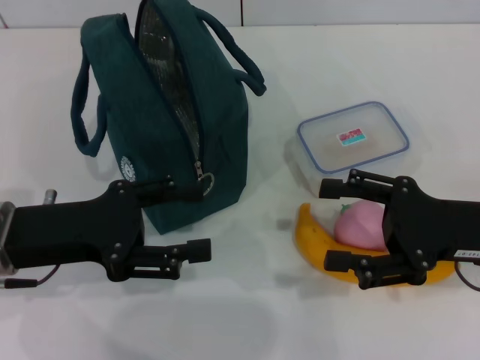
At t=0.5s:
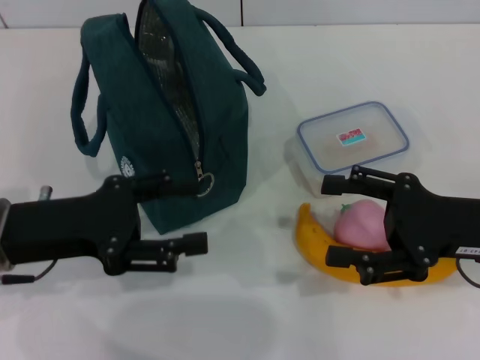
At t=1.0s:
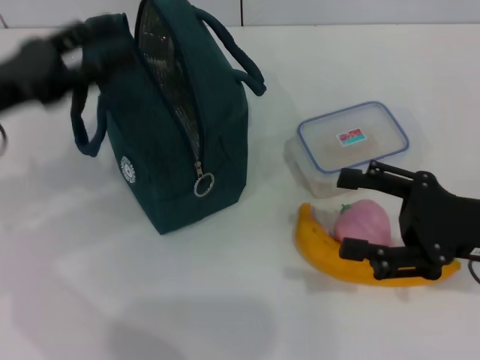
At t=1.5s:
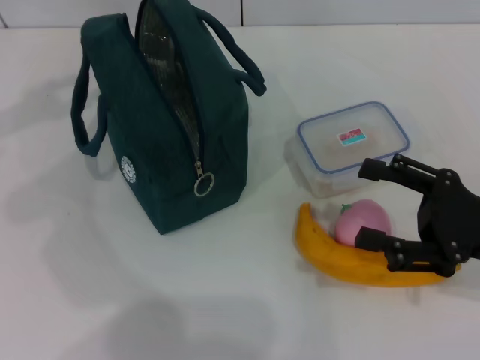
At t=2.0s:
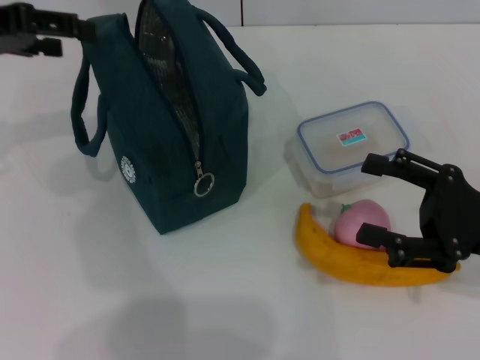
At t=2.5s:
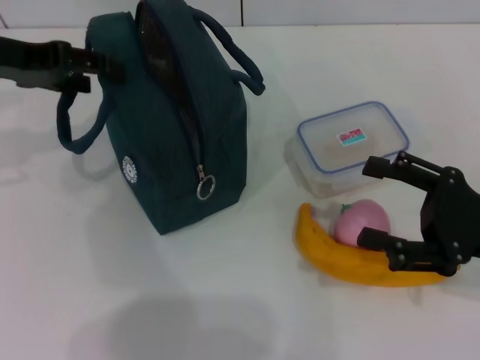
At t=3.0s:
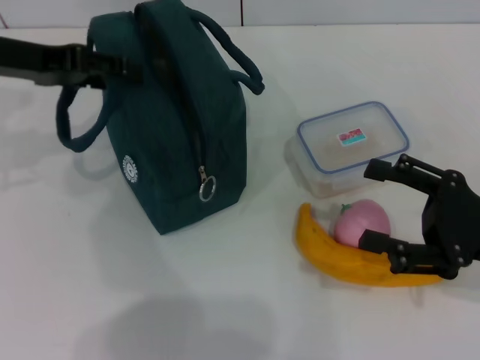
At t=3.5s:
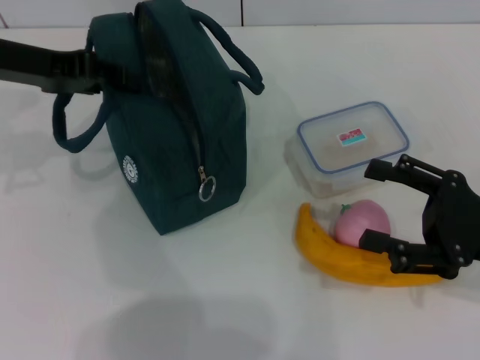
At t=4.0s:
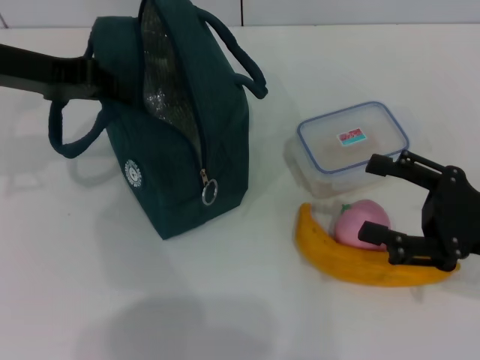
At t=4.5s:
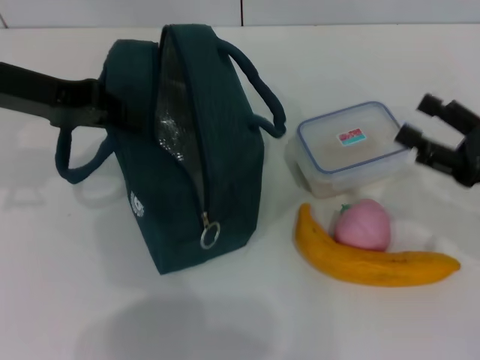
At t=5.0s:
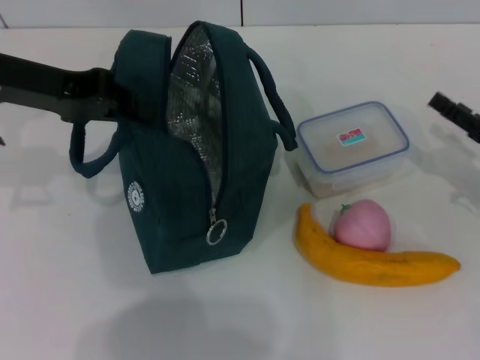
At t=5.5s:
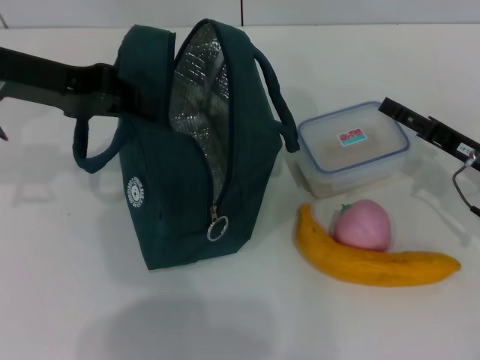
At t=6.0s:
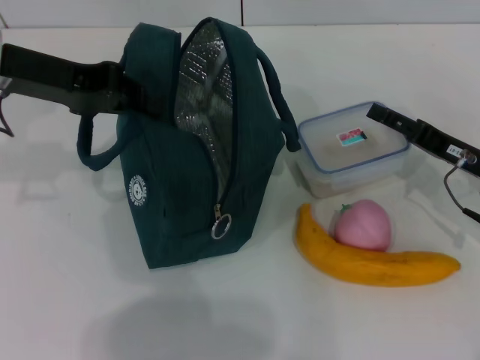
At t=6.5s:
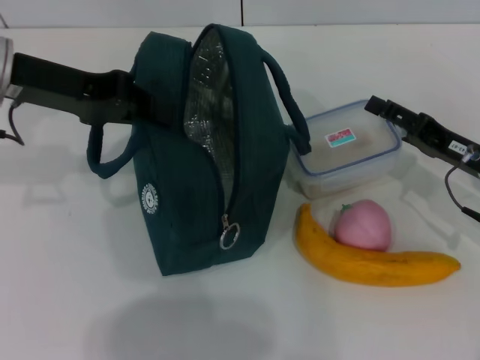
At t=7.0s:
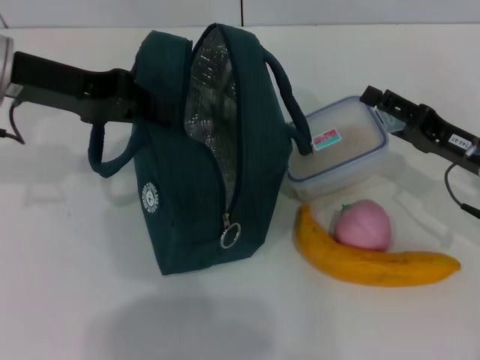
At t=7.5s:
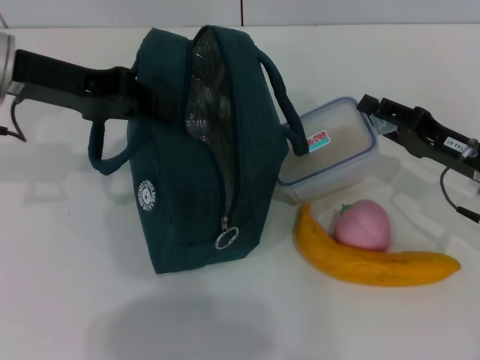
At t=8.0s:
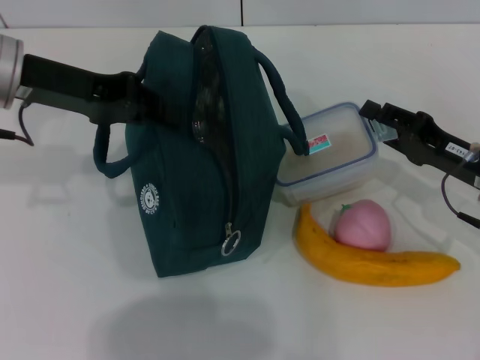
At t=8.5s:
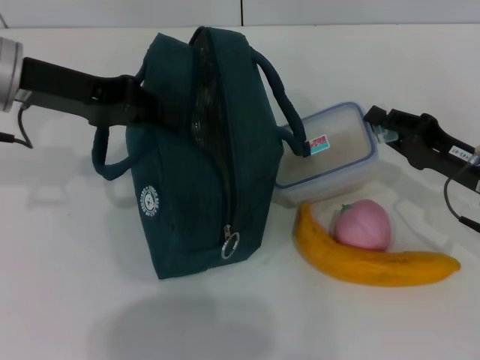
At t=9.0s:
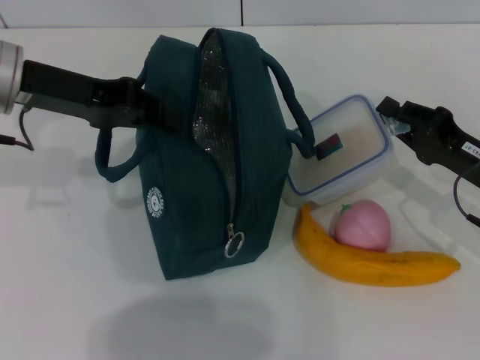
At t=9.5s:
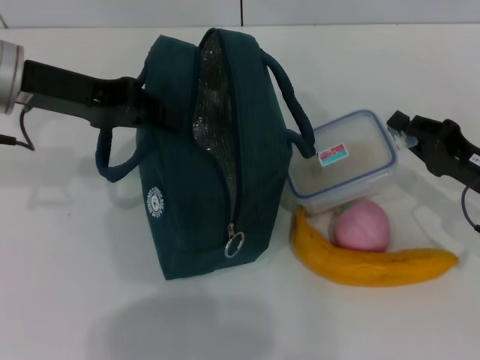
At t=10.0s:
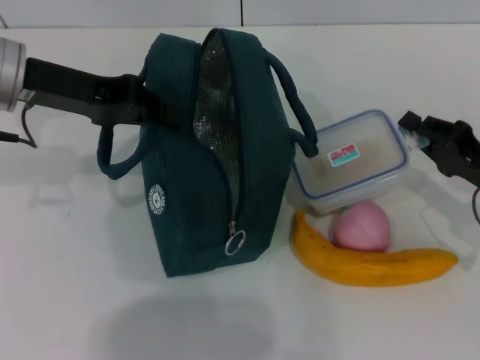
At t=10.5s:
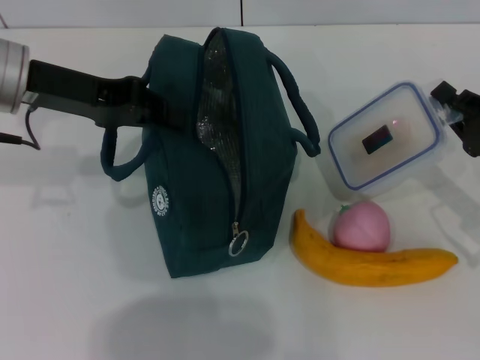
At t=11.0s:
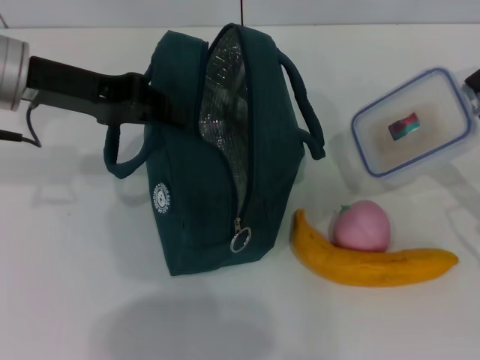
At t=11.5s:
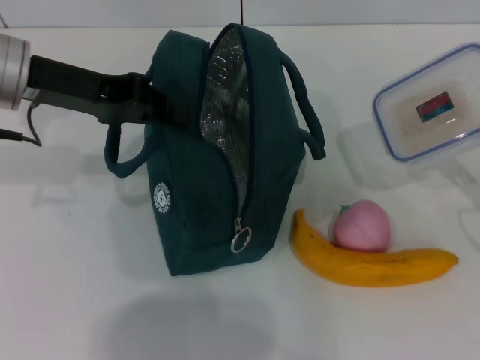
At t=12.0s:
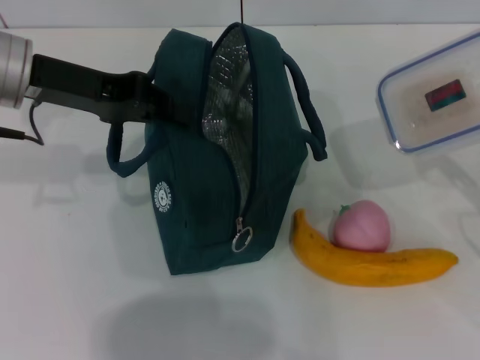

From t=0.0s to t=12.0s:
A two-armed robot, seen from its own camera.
Step, from t=0.0s to t=3.5s: Hold the lunch bag with your left hand.
Step, from t=4.0s to t=8.5s: Pick up the lunch box with your right hand.
From t=0.0s to t=2.0s: The left gripper heads upward, forward and to the left, covering approximately 20 cm.
From t=2.0s to t=4.0s: The left gripper moves some 5 cm, and closes its fingers.
From t=4.0s to t=6.0s: The right gripper moves forward, approximately 10 cm.
From t=6.0s to t=8.0s: The right gripper closes up.
From t=8.0s to t=10.0s: The right gripper closes.
From t=10.0s to t=12.0s: The right gripper shifts by about 5 cm.

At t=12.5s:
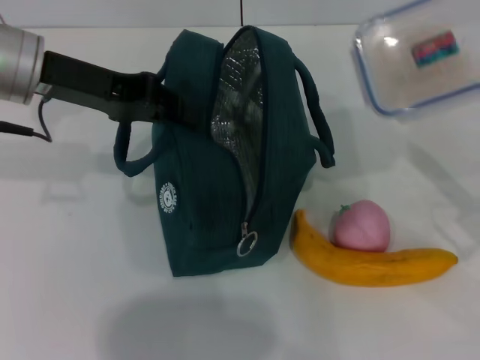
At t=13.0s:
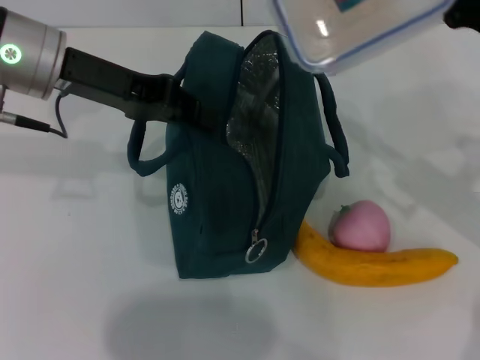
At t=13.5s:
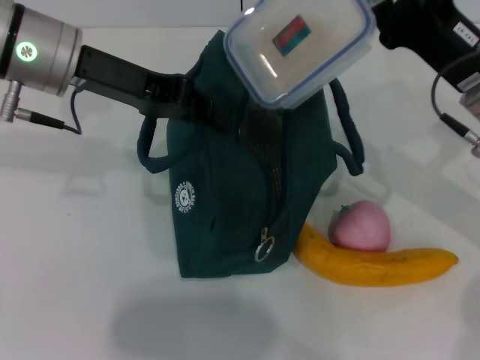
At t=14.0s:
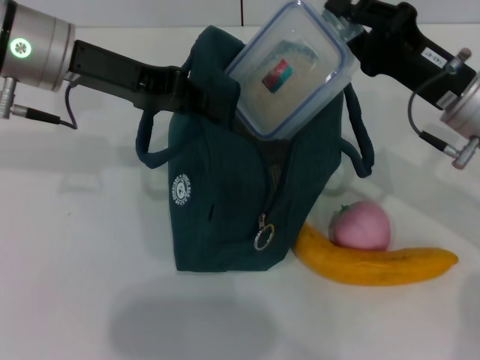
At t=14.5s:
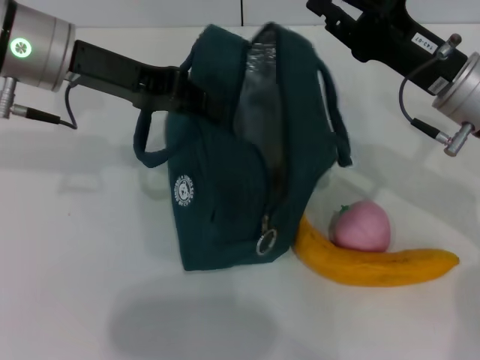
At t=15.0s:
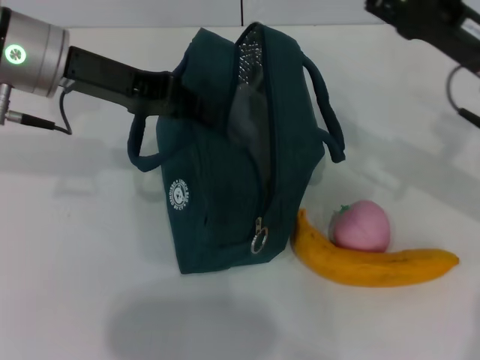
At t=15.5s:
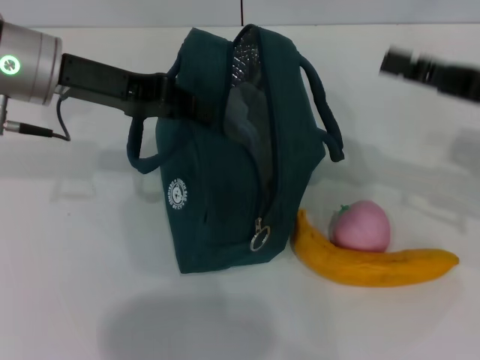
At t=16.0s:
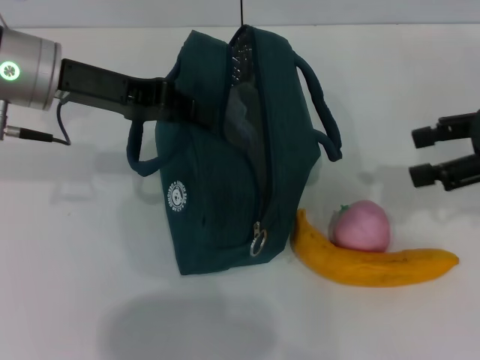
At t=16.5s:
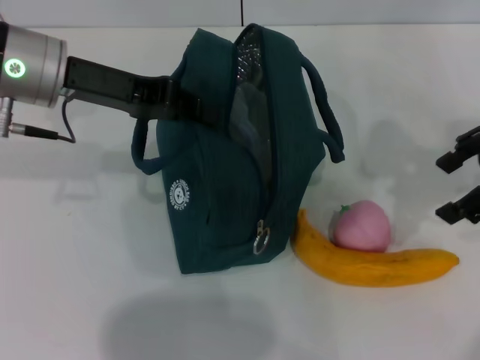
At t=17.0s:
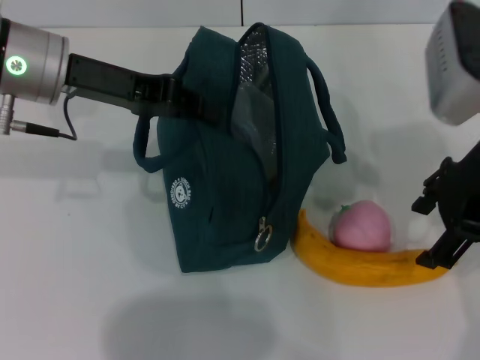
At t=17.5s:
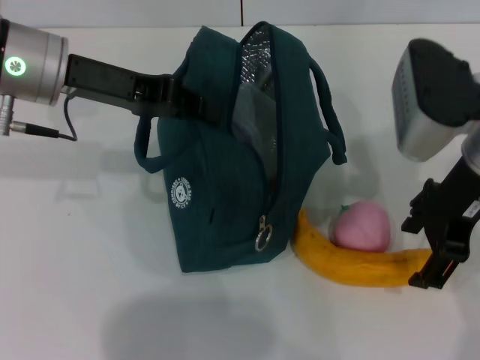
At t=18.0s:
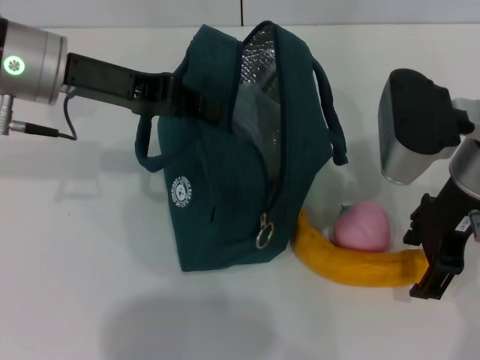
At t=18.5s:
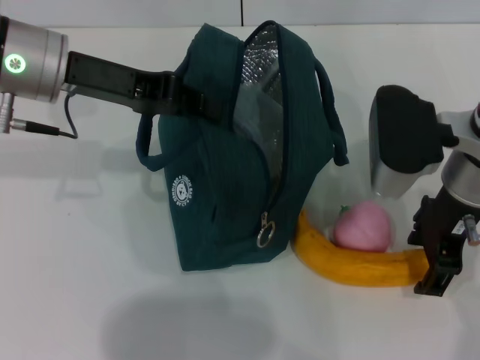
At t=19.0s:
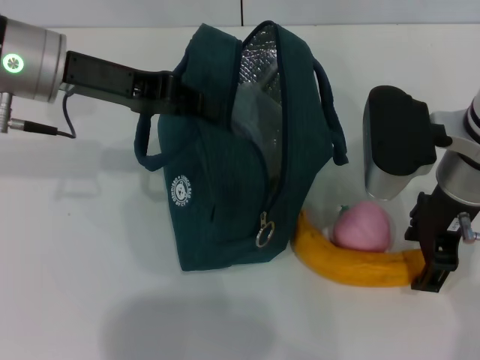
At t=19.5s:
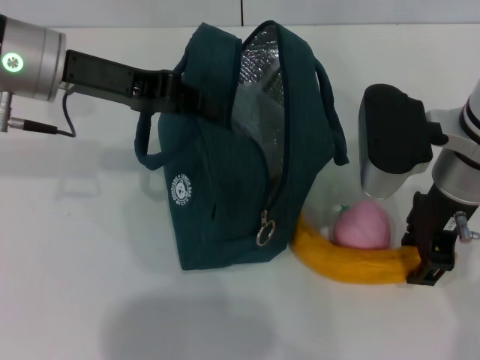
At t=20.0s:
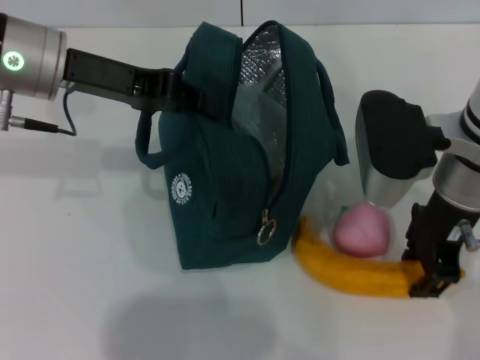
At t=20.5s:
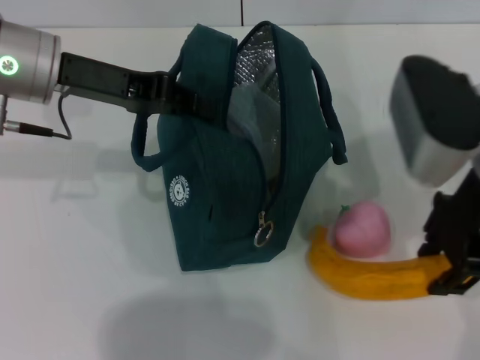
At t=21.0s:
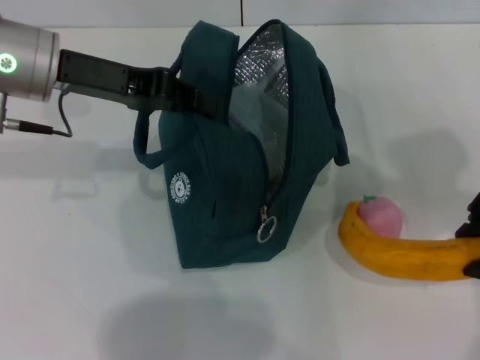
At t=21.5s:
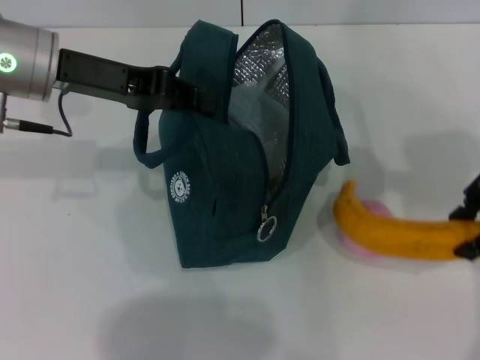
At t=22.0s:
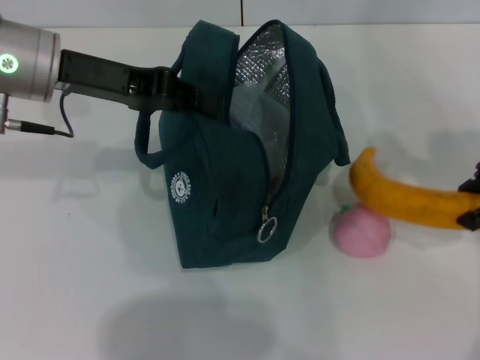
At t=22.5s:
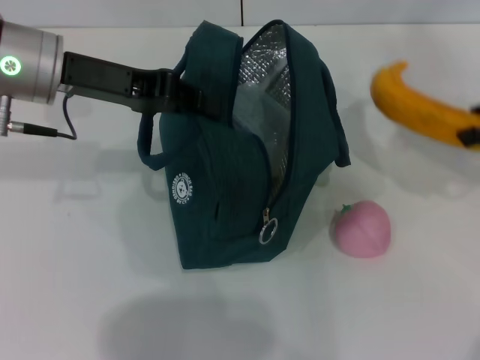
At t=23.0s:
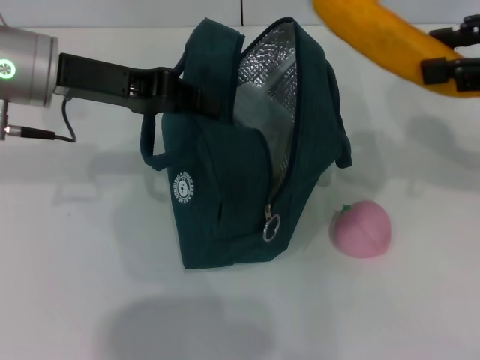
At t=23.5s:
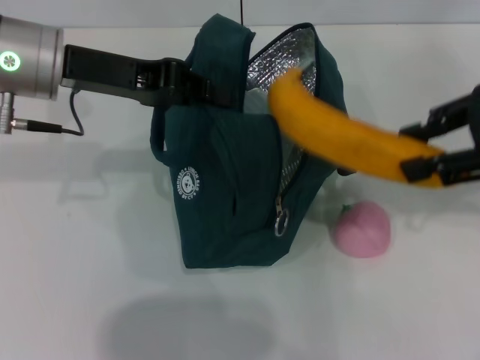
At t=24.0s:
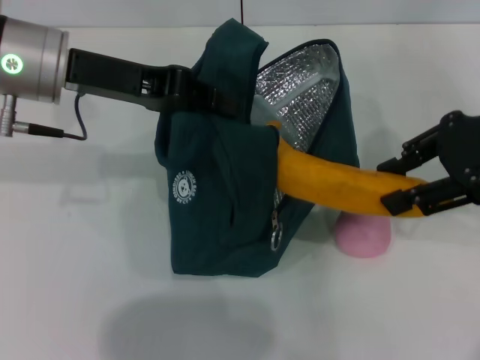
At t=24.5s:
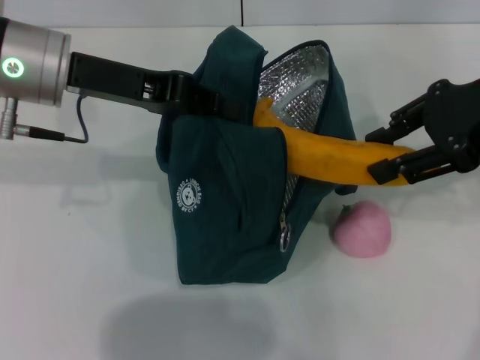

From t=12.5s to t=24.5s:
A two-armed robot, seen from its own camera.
Step, from t=12.5s to t=14.5s: Place the lunch box into the lunch bag with your right hand.
Step, from t=15.0s to t=19.5s: Take the banana with your right hand.
From t=12.5s to t=14.5s: The right gripper travels to the left and forward by roughly 15 cm.
From t=14.5s to t=16.5s: The right gripper heads upward and to the right, covering about 15 cm, and opens.
From t=16.5s to t=18.5s: The right gripper is displaced to the left and downward by roughly 15 cm.
From t=18.5s to t=20.5s: The right gripper ends up roughly 5 cm from where it was, and closes its fingers.
From t=20.5s to t=22.5s: The right gripper moves to the right, roughly 15 cm.
From t=22.5s to t=24.5s: The right gripper goes about 5 cm to the left.

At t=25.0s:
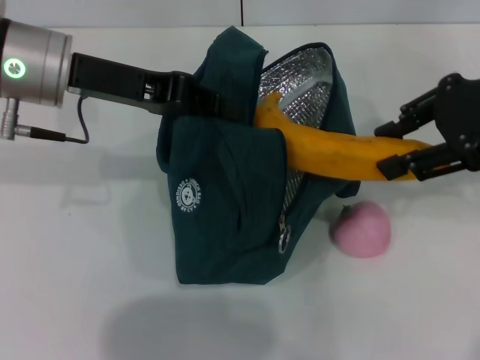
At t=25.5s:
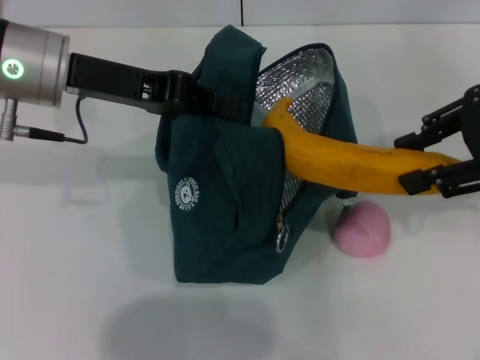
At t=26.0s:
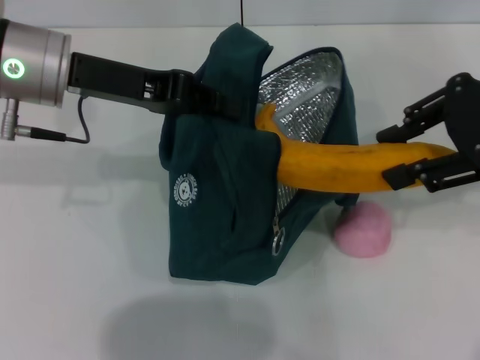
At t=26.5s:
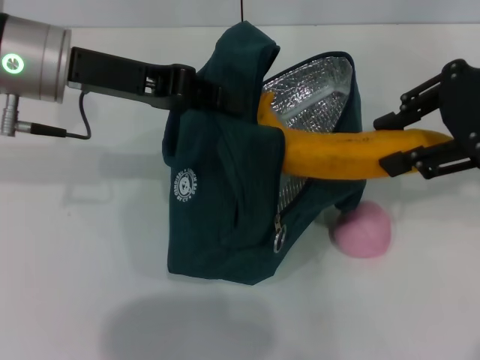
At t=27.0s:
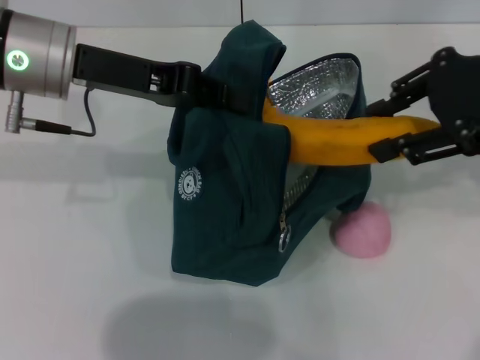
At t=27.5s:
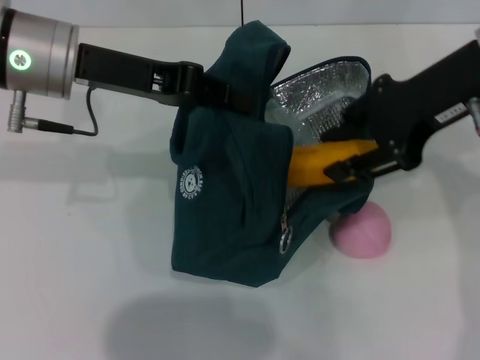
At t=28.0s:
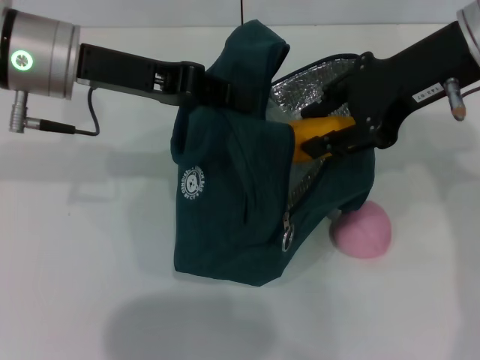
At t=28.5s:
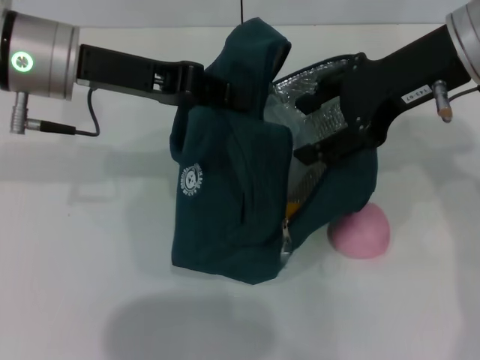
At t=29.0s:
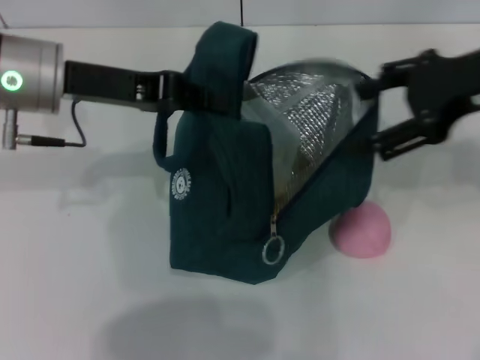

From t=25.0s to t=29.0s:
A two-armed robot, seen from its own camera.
Step, from t=25.0s to t=28.5s: Put the banana into the lunch bag with your right hand.
From t=25.0s to t=27.0s: The grippers move only a little.
From t=27.0s to t=29.0s: The right gripper opens its fingers.
